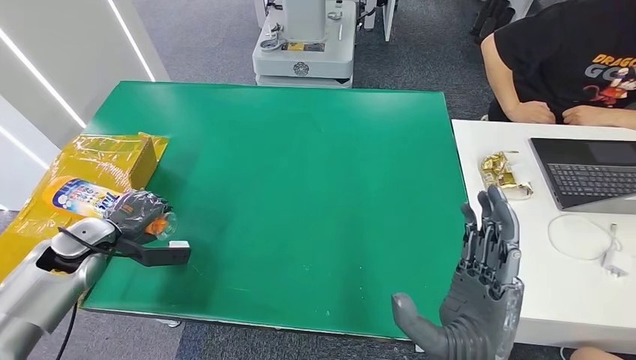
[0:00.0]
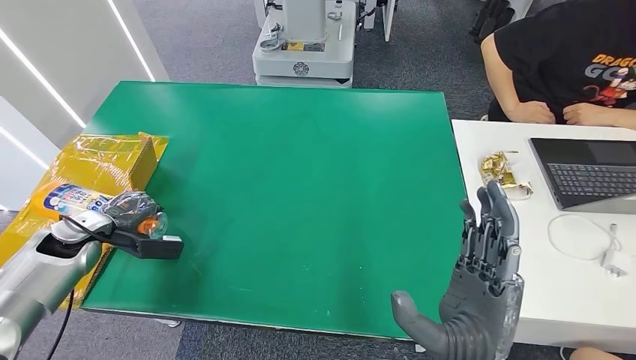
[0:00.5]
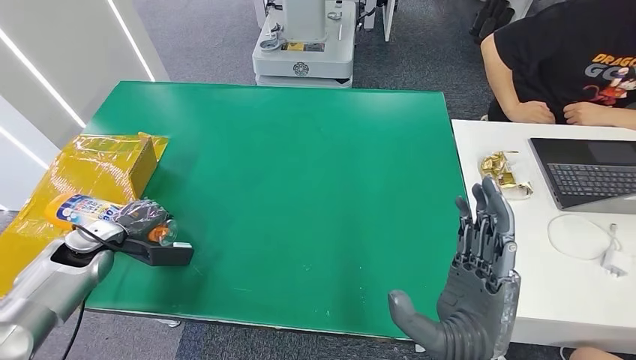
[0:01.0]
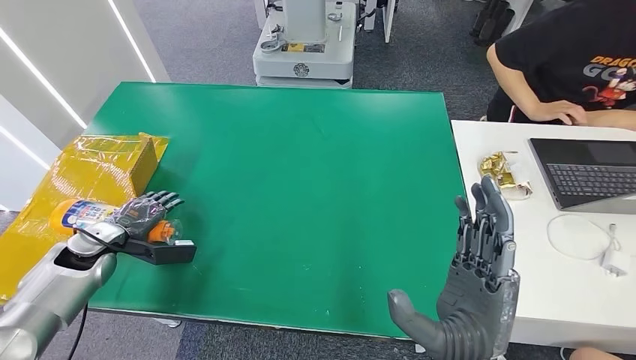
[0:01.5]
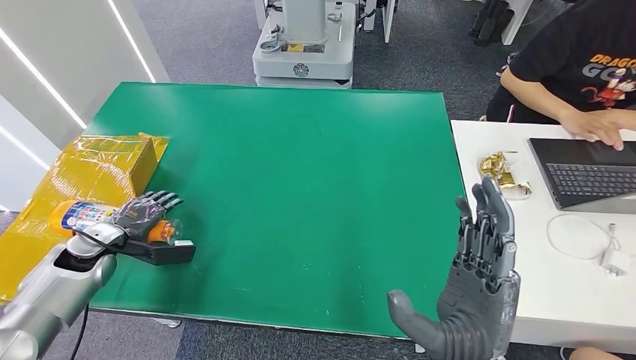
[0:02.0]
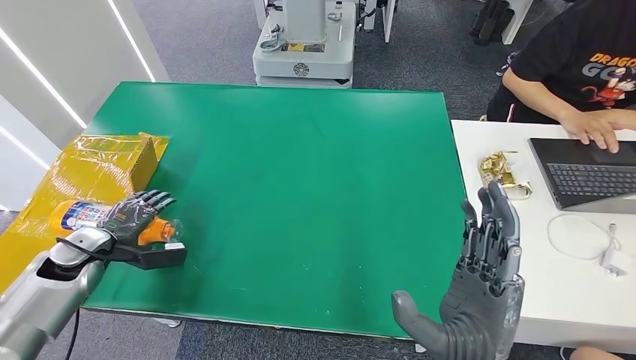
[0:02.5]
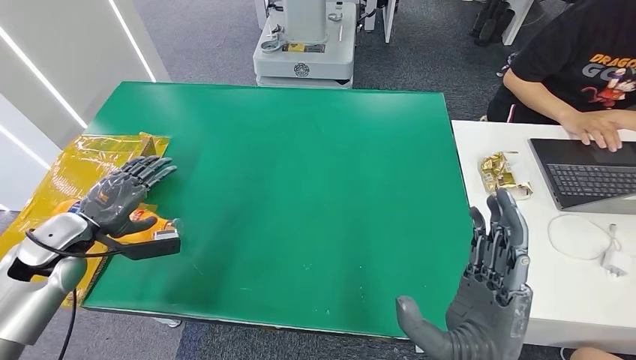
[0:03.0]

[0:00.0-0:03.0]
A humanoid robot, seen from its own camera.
Step, 0:00.0 to 0:03.0: Turn the bottle to the front side.
0:00.0 to 0:01.5: The hands stay close to where they were, moving slightly.
0:01.5 to 0:03.0: The left hand is displaced upward by some 5 cm.
